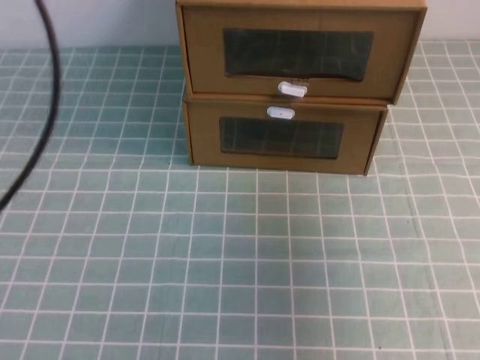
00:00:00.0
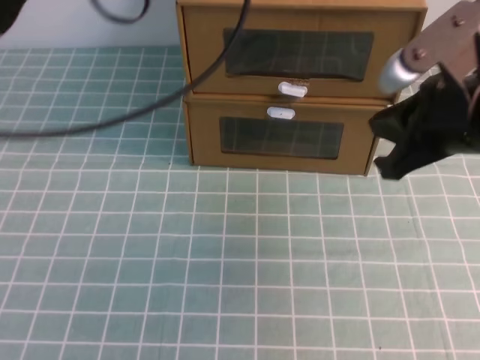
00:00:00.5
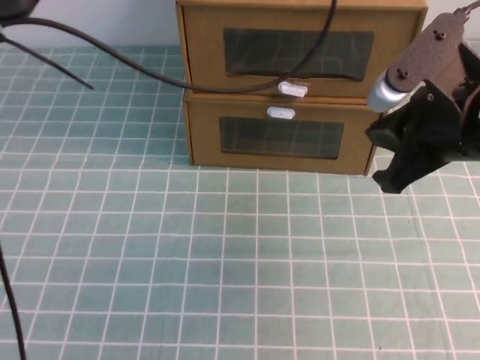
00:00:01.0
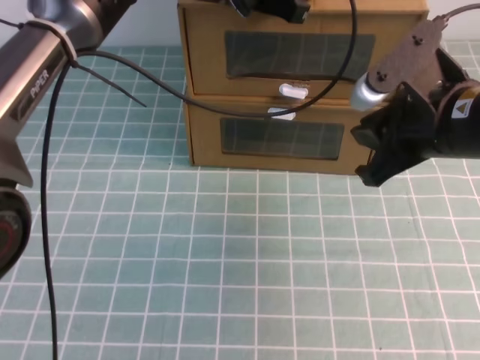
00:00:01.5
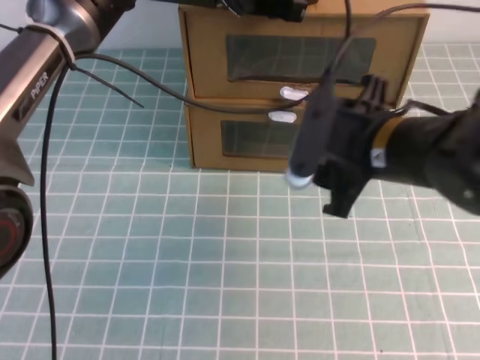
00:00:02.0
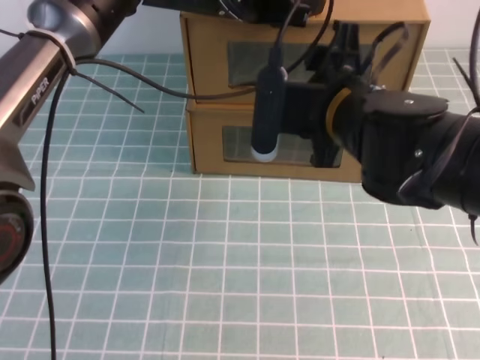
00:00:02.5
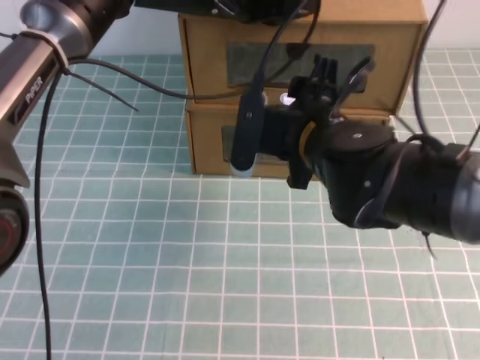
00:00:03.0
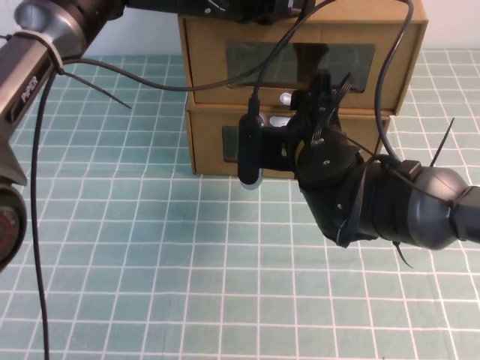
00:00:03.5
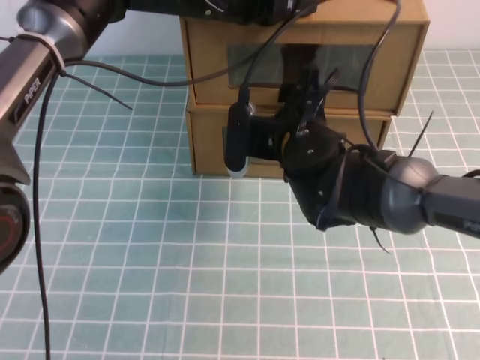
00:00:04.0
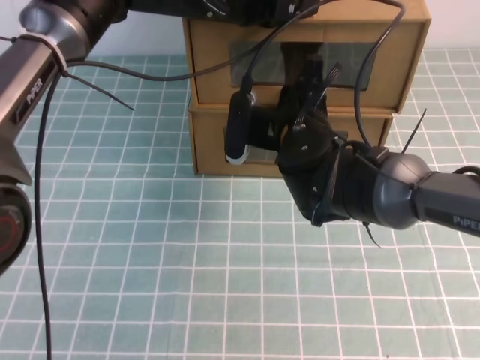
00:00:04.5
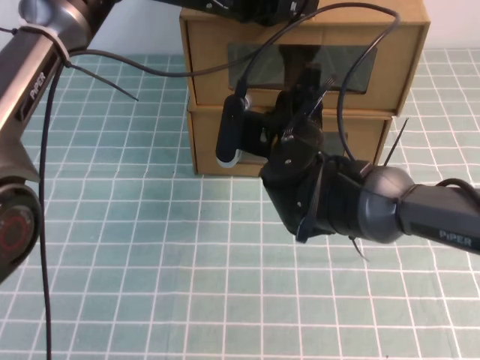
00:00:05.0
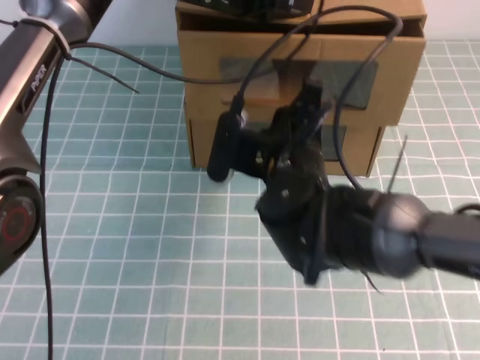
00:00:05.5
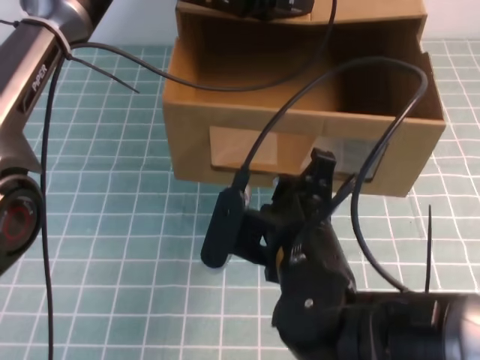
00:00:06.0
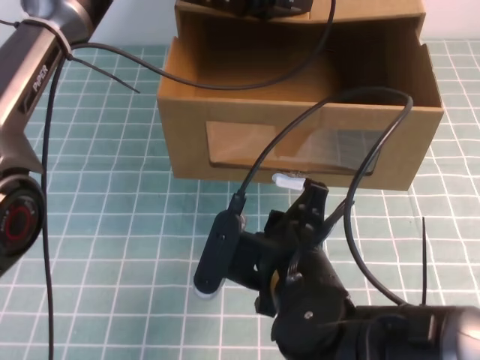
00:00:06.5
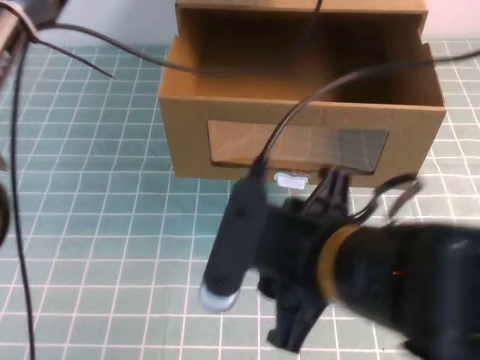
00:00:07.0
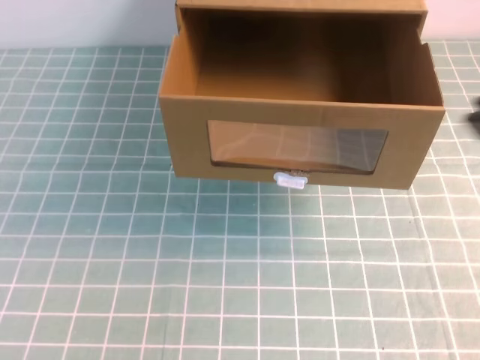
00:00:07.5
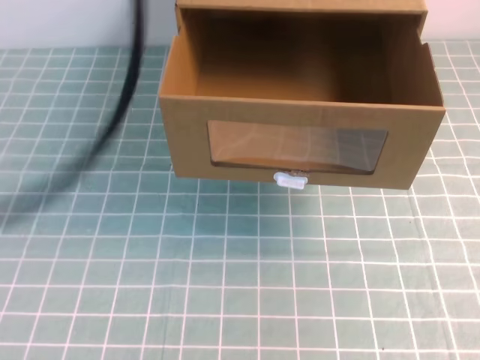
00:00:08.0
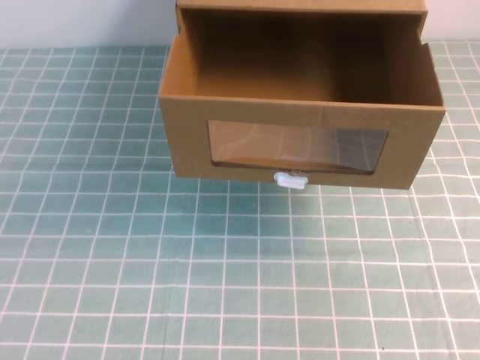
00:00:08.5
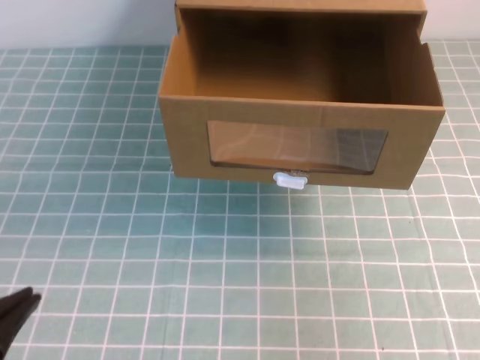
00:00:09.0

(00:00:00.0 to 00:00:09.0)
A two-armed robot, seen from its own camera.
Task of the whole recording: open the shoebox on the cyan tablecloth.
00:00:00.0 - 00:00:02.0: The right gripper heads to the left and downward, covering about 20 cm, and opens its fingers. Meanwhile the left gripper travels forward and to the right by roughly 30 cm.
00:00:02.0 - 00:00:04.5: The right gripper heads to the left, forward and downward, covering approximately 10 cm, and closes up.
00:00:04.5 - 00:00:07.0: The left gripper is displaced upward by roughly 5 cm, while the right gripper goes about 20 cm backward, and opens its fingers.
00:00:07.0 - 00:00:09.0: The right gripper heads to the right, covering roughly 25 cm, and closes up, while the left gripper shifts about 40 cm backward, to the left and downward.

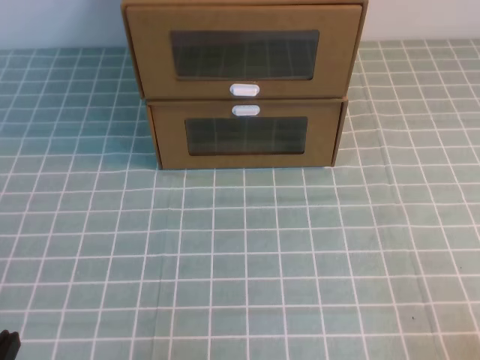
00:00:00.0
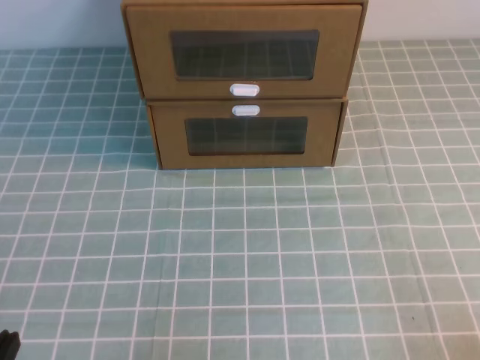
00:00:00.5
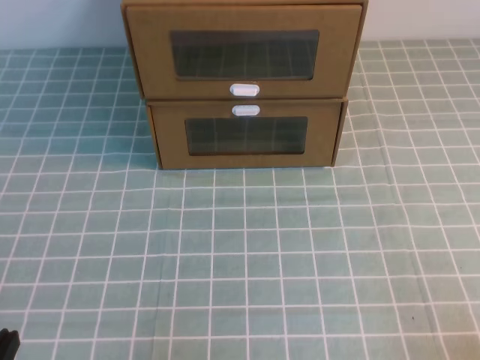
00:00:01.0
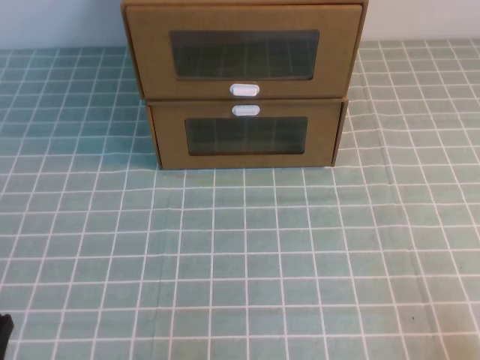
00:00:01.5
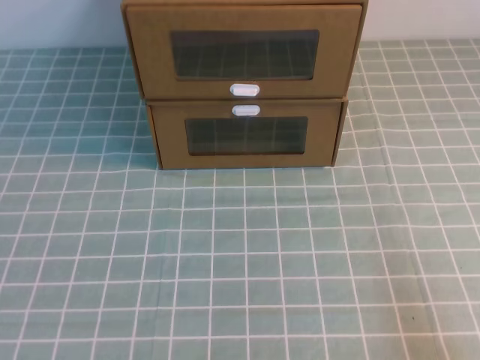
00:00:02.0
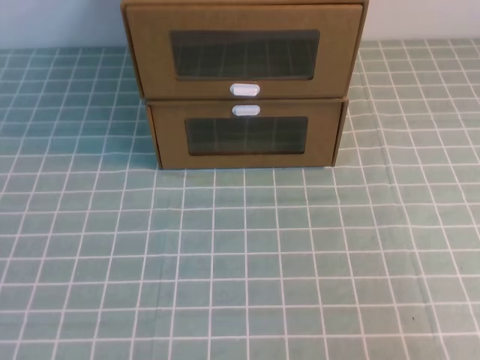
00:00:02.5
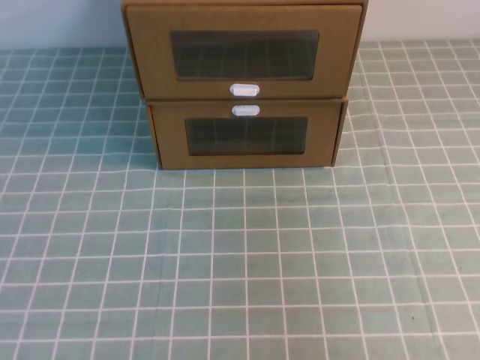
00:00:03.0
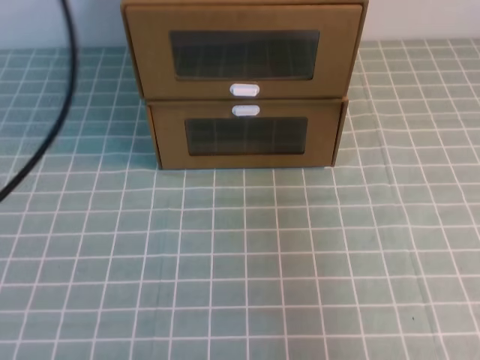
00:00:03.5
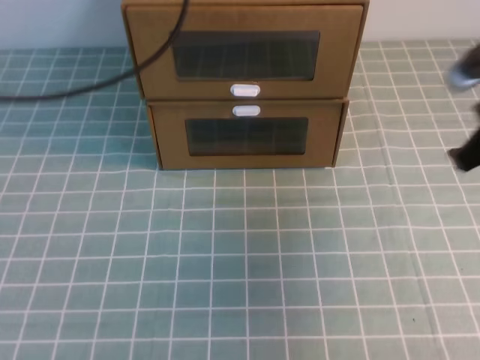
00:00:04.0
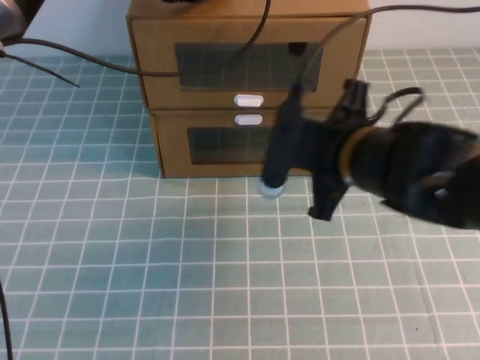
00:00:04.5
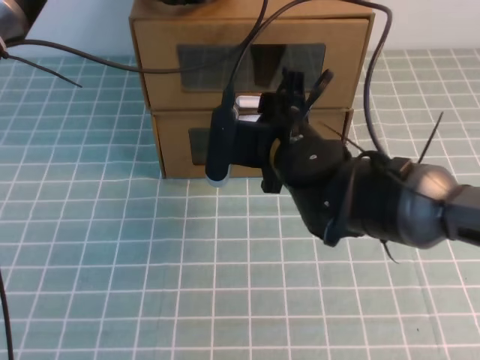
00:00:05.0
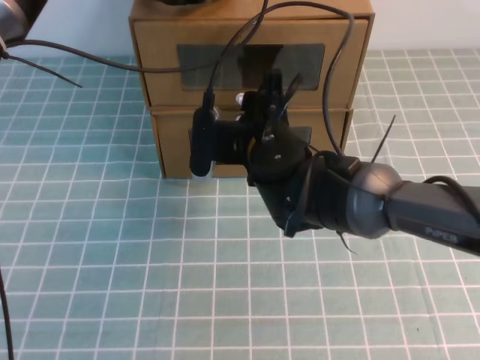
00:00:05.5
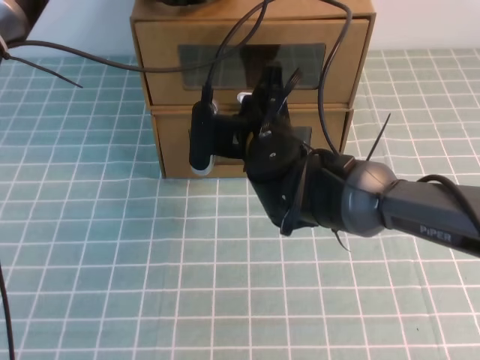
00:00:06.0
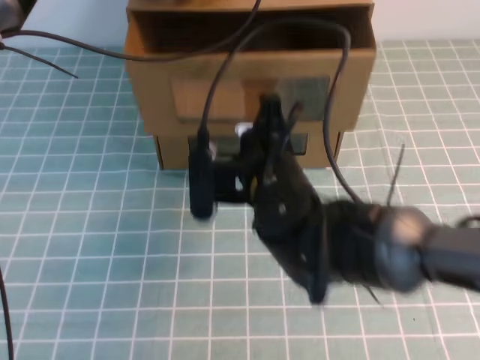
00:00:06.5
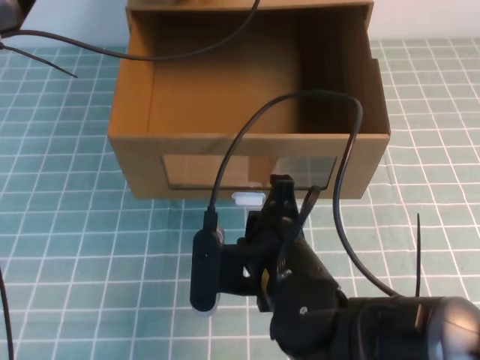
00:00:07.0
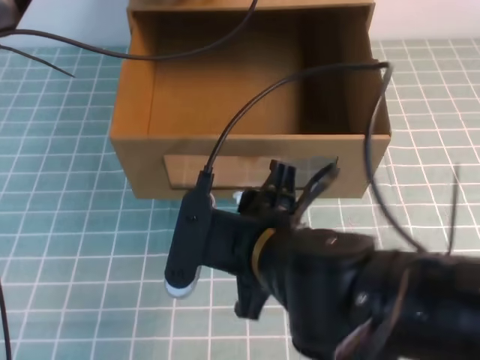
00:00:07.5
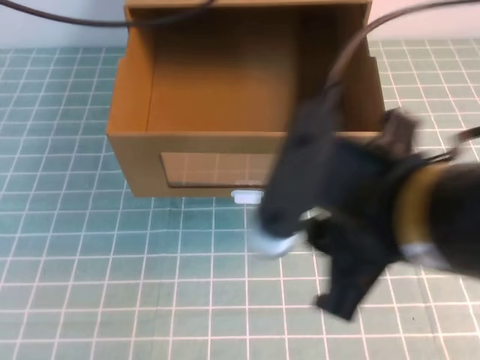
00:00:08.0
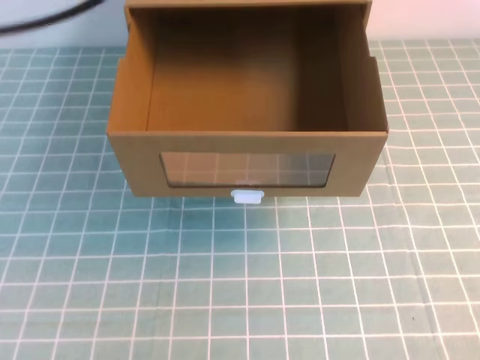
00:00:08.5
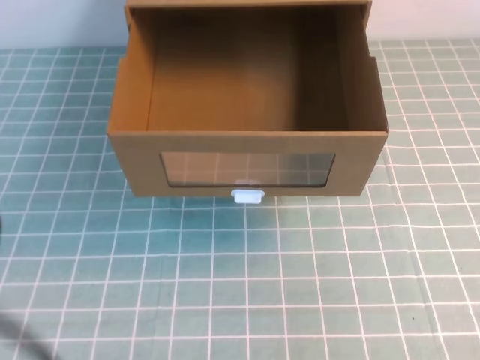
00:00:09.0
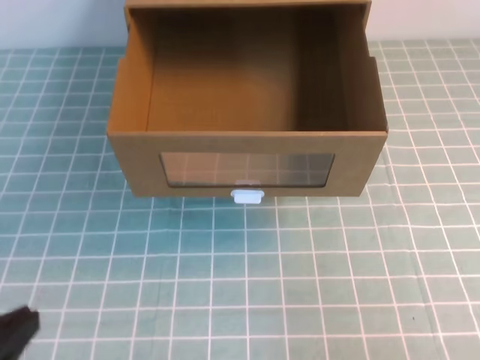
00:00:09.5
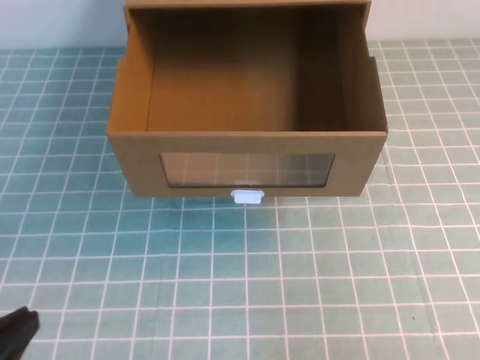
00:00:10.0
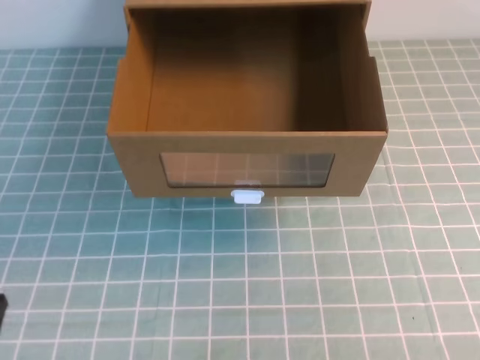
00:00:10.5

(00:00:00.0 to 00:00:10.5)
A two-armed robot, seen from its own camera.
Task of the whole recording: open the shoebox on the cyan tablecloth.
00:00:02.0 - 00:00:04.0: The left gripper heads forward and upward, covering about 35 cm. Meanwhile the right gripper goes about 25 cm forward and upward.
00:00:04.0 - 00:00:06.5: The right gripper travels to the left and downward by roughly 25 cm, and opens, then closes once more; the left gripper moves forward, to the right and downward, about 15 cm.
00:00:06.5 - 00:00:08.5: The left gripper travels backward and upward by roughly 30 cm. The right gripper shifts some 35 cm upward, backward and to the right, and opens and closes again.
00:00:08.5 - 00:00:10.5: The right gripper heads downward and to the right, covering approximately 20 cm, while the left gripper goes roughly 40 cm downward and backward.

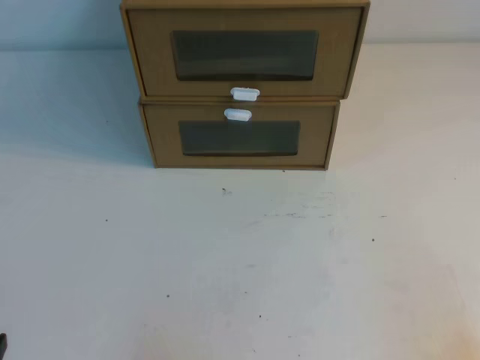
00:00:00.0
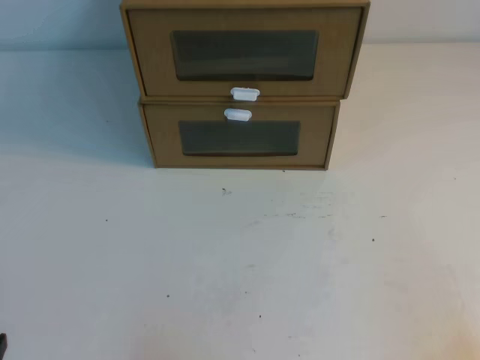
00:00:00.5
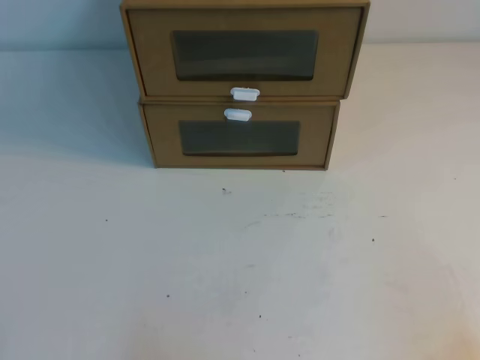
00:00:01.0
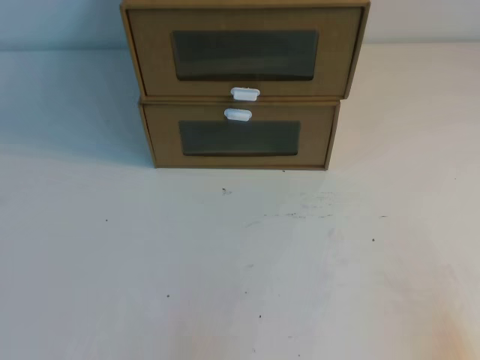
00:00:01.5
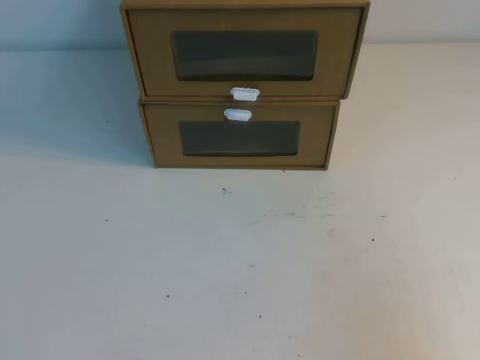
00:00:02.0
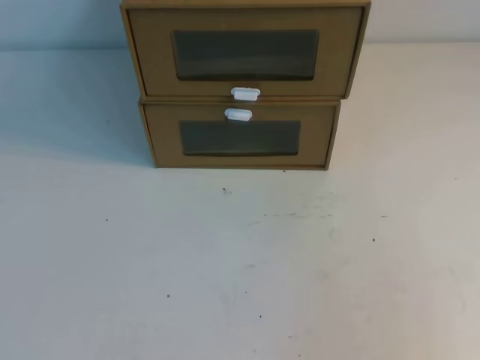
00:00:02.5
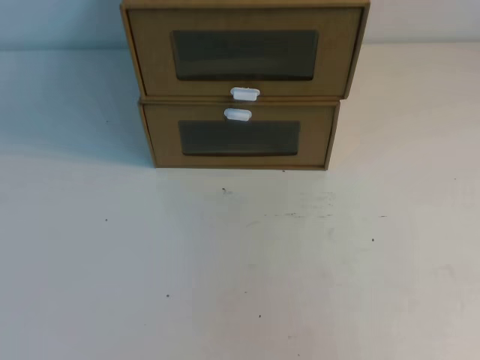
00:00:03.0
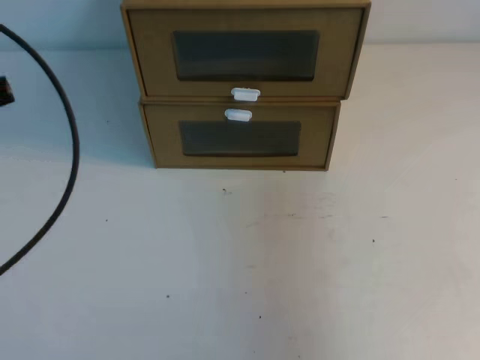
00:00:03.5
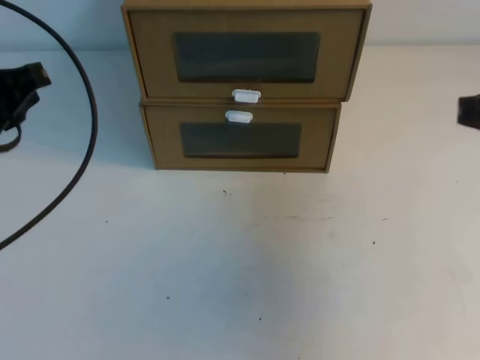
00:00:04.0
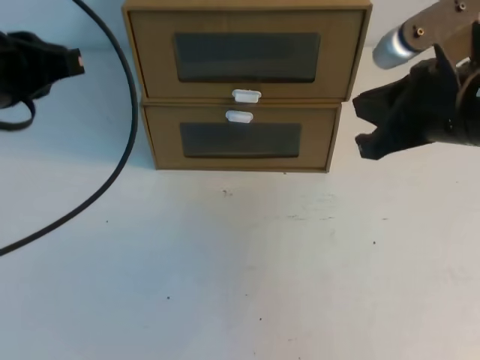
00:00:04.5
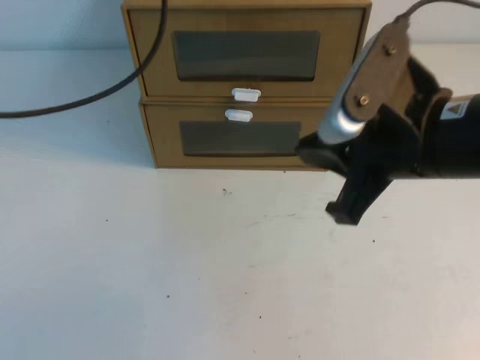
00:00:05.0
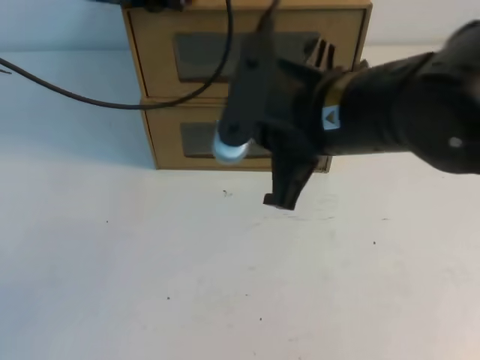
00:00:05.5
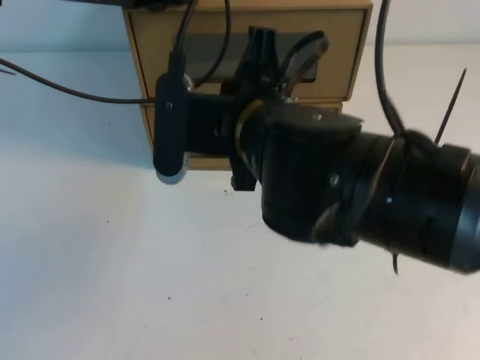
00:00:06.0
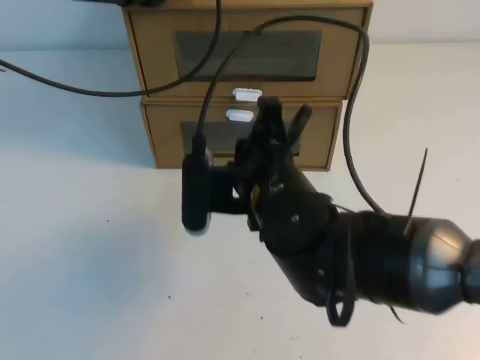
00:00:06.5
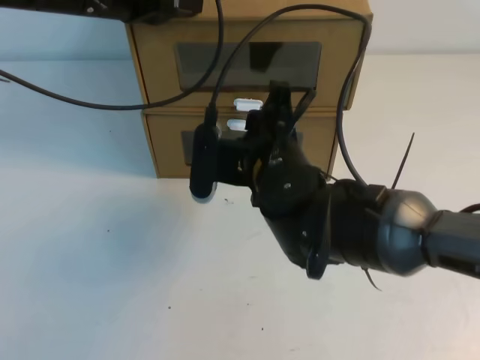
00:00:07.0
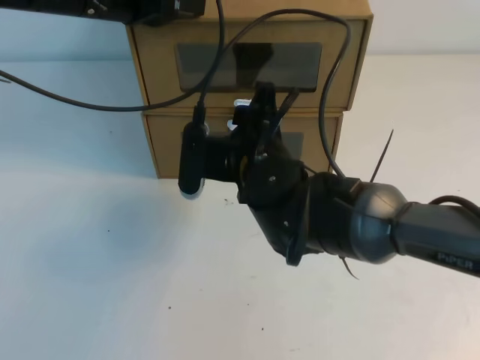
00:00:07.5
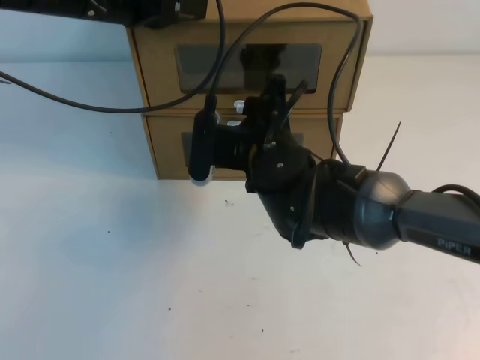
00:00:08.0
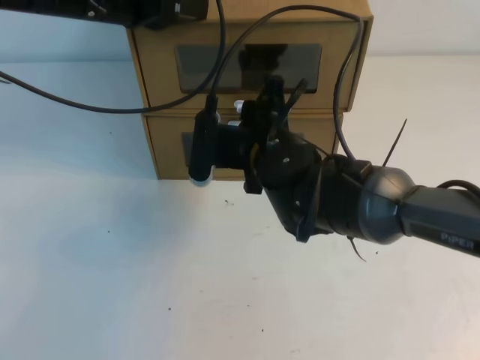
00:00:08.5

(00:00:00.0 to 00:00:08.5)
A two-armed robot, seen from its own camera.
Task of the whole recording: open the shoebox on the table.
00:00:02.0 - 00:00:04.0: Both grippers travel together forward and upward, about 25 cm.
00:00:04.0 - 00:00:06.5: The left gripper is displaced forward and to the right by about 20 cm, while the right gripper moves to the left and downward, about 25 cm.
00:00:06.5 - 00:00:08.5: The right gripper moves forward, some 10 cm, and opens up.
